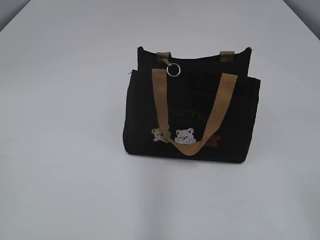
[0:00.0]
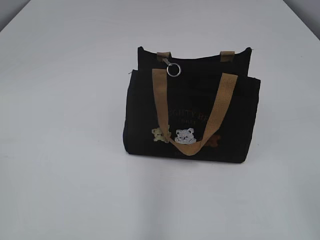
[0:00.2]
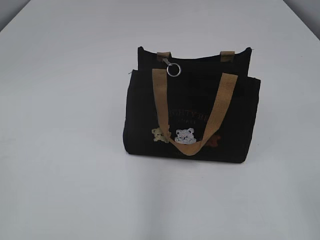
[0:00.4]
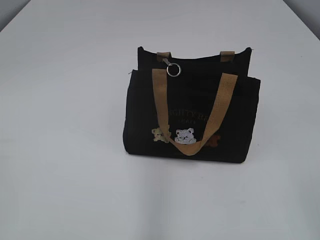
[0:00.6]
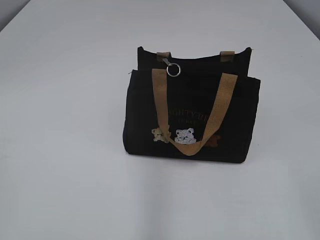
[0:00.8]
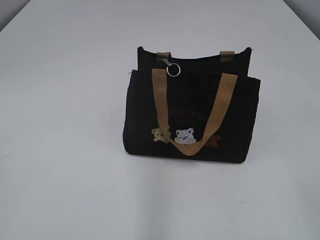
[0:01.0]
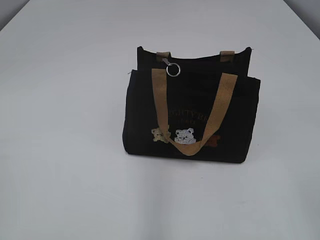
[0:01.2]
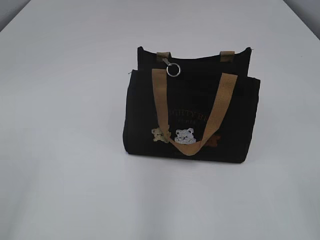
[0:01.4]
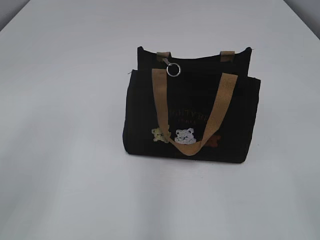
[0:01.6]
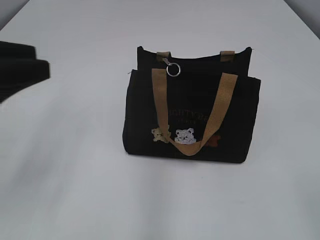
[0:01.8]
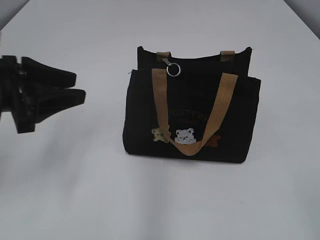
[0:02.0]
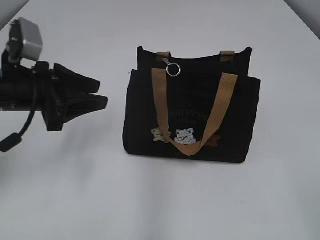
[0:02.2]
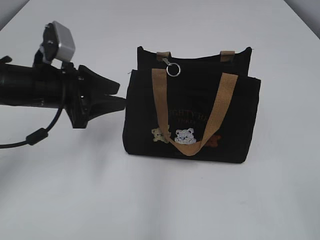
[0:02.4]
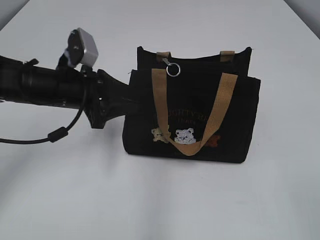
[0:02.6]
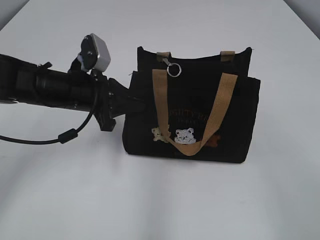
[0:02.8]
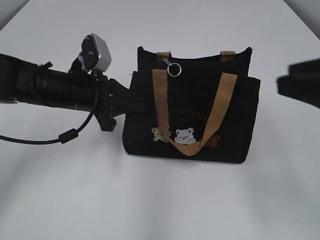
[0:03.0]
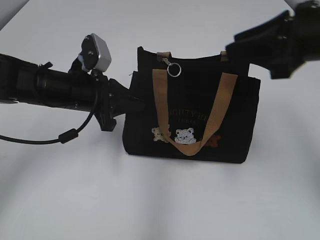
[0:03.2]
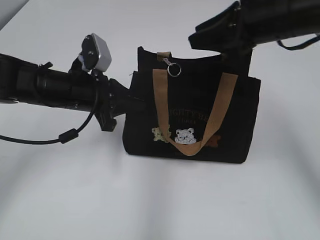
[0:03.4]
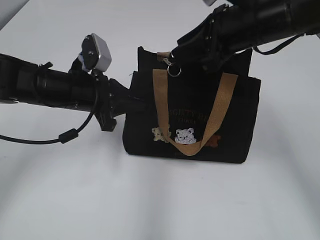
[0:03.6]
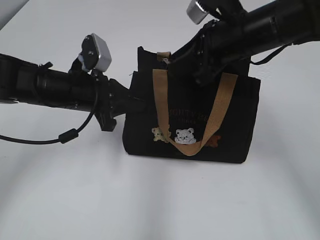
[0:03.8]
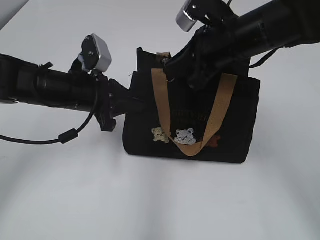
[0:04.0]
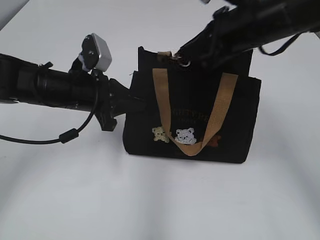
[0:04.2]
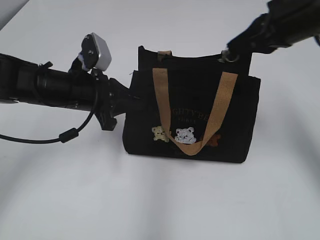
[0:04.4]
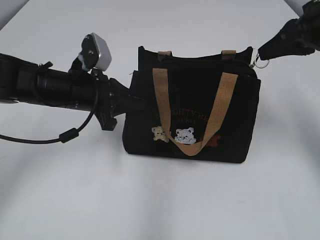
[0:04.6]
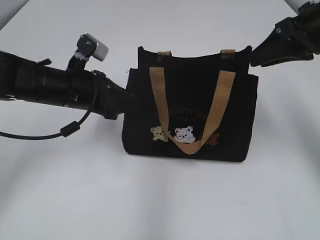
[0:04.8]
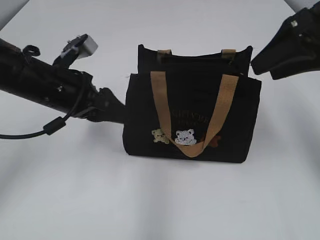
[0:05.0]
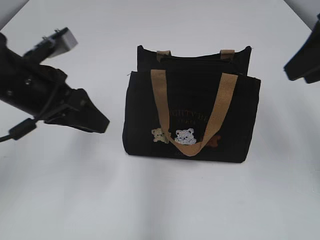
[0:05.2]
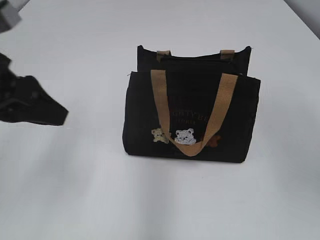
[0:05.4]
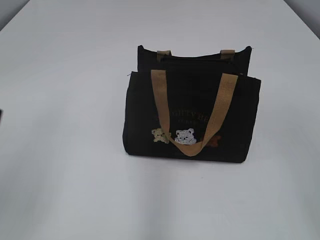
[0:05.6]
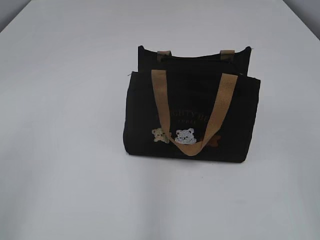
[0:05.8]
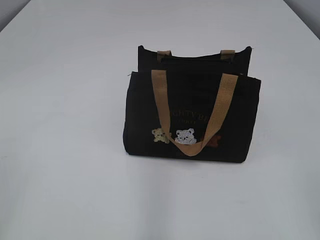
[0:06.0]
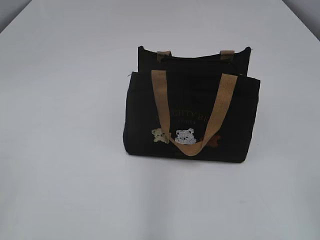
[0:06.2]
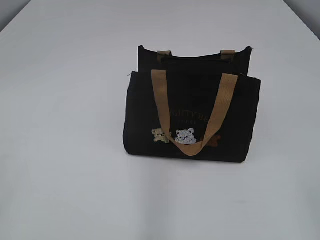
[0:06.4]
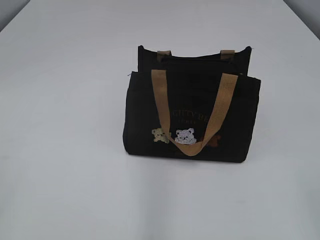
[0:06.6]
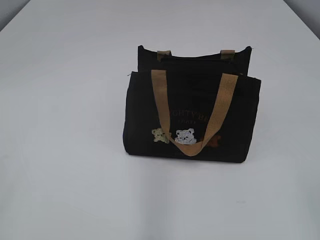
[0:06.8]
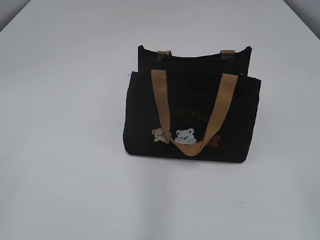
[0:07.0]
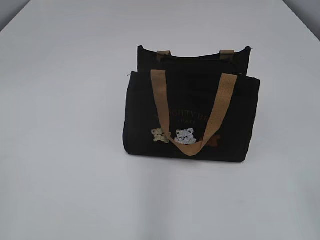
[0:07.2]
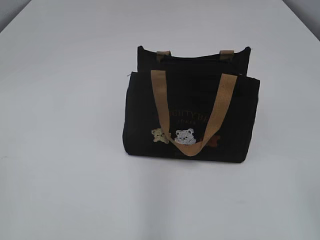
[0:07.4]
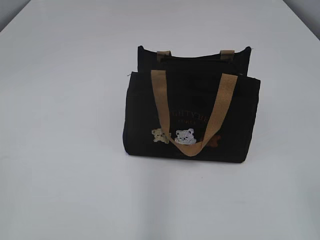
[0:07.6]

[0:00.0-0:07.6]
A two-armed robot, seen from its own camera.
Step, 0:00.0 to 0:04.6: Pull open the zipper with your right hand.
Step, 0:04.8 to 0:05.0: Hold the bag with your left hand.
0:01.6 to 0:03.0: The right gripper heads forward, covering approximately 15 cm. Meanwhile the left gripper heads forward, downward and to the right, covering roughly 30 cm, and closes.
0:03.0 to 0:04.6: The right gripper goes some 20 cm forward, and closes up.
0:04.6 to 0:06.0: The right gripper moves backward, approximately 30 cm, and opens its fingers. Meanwhile the left gripper heads backward, to the left and upward, covering some 35 cm, and opens.

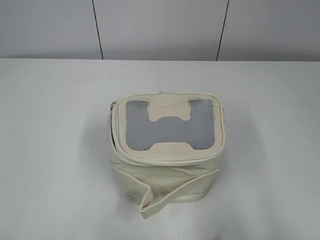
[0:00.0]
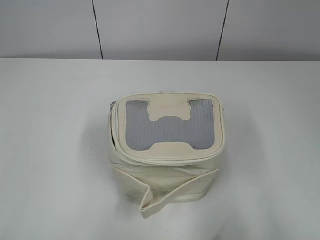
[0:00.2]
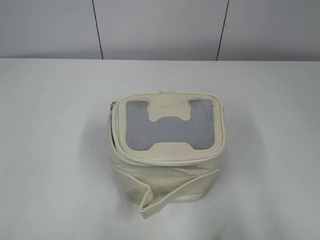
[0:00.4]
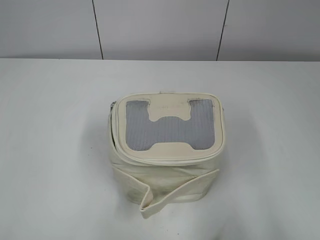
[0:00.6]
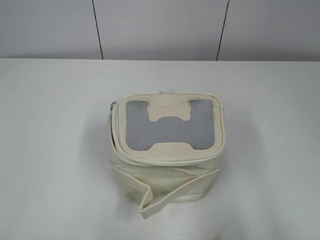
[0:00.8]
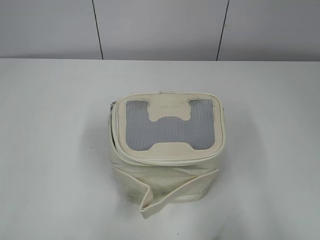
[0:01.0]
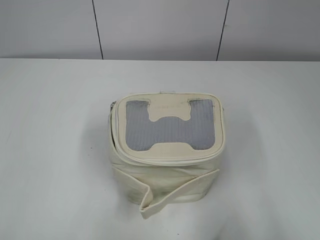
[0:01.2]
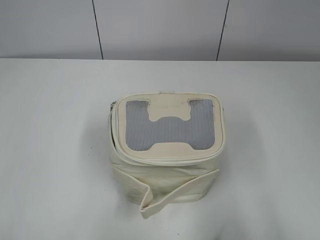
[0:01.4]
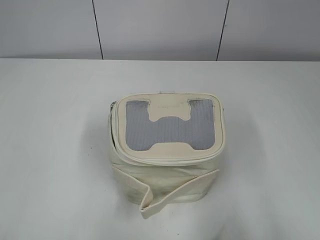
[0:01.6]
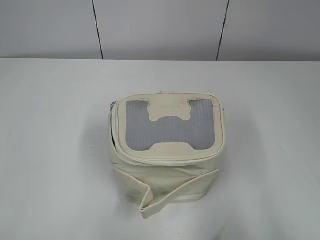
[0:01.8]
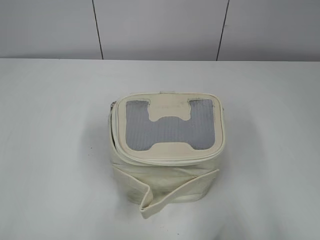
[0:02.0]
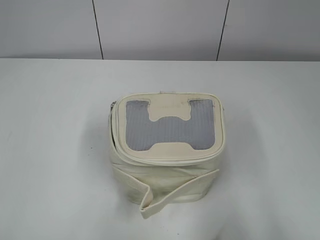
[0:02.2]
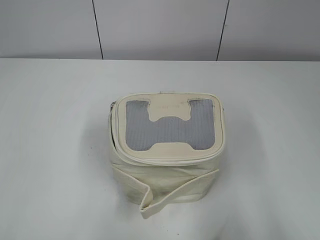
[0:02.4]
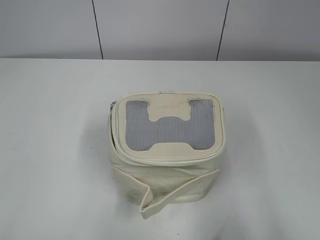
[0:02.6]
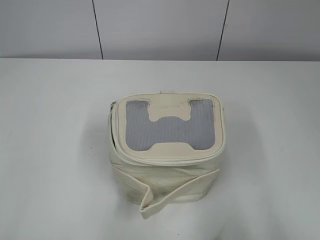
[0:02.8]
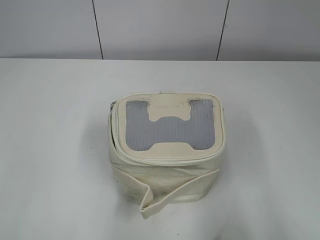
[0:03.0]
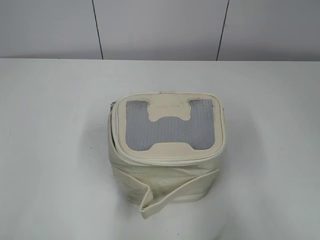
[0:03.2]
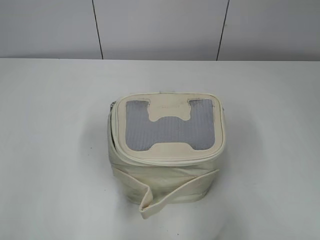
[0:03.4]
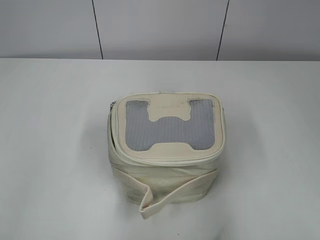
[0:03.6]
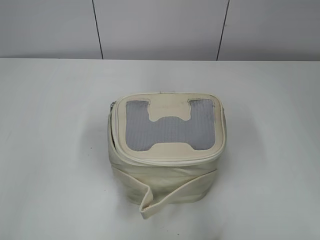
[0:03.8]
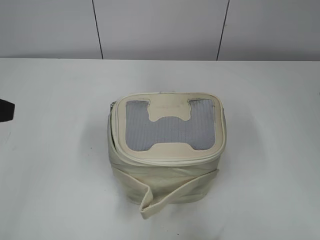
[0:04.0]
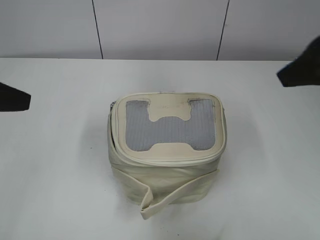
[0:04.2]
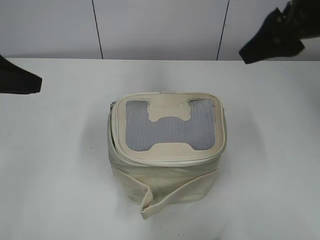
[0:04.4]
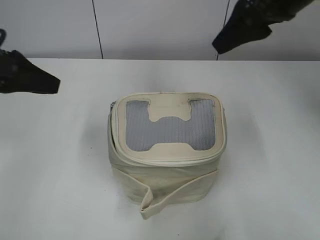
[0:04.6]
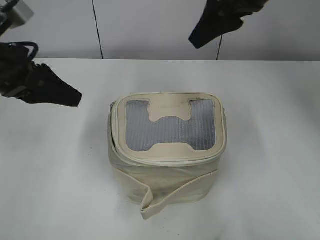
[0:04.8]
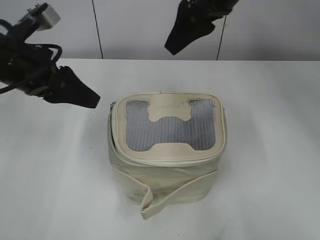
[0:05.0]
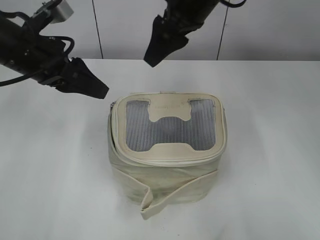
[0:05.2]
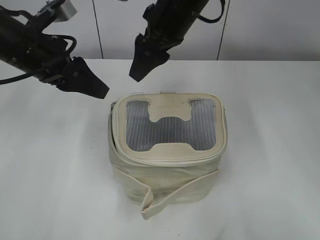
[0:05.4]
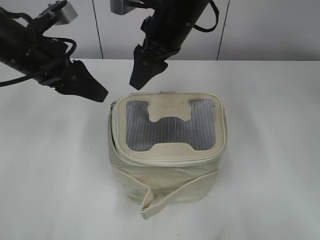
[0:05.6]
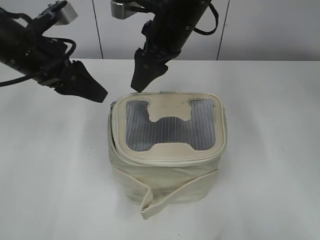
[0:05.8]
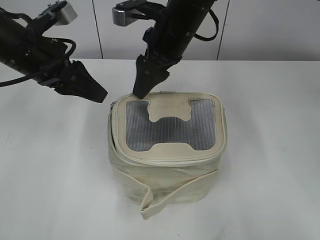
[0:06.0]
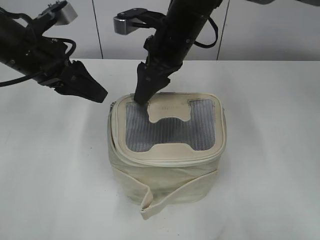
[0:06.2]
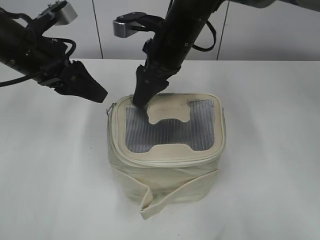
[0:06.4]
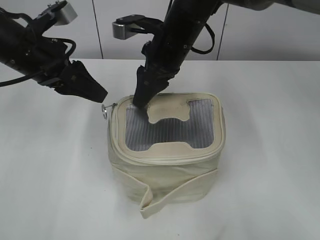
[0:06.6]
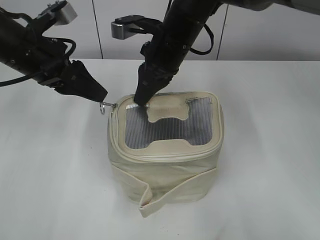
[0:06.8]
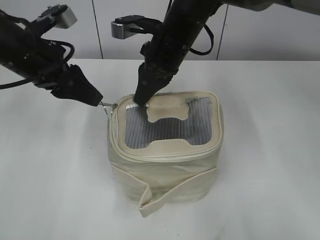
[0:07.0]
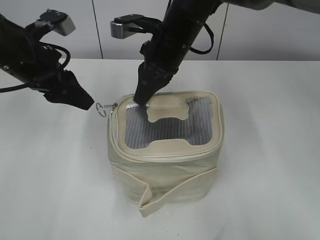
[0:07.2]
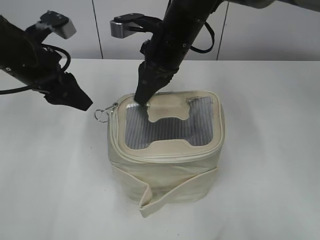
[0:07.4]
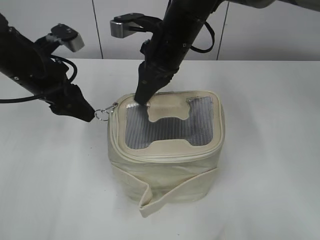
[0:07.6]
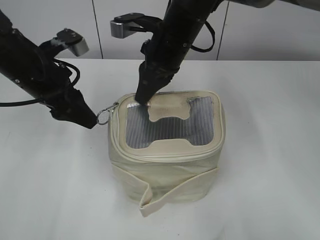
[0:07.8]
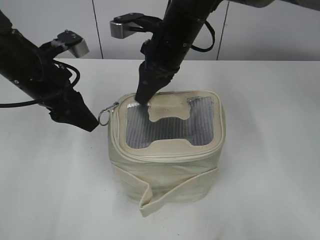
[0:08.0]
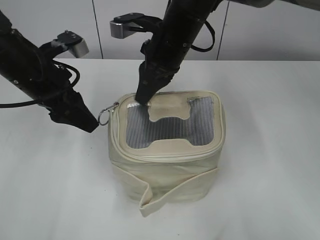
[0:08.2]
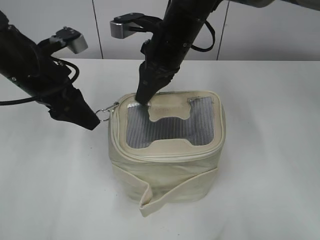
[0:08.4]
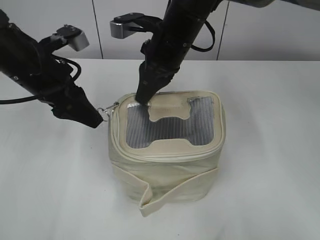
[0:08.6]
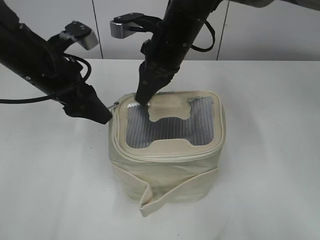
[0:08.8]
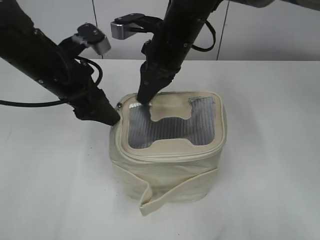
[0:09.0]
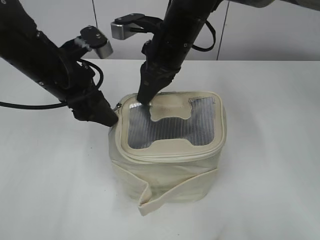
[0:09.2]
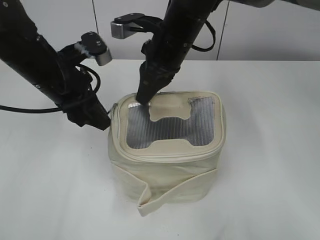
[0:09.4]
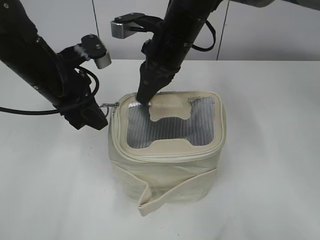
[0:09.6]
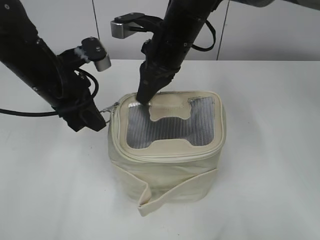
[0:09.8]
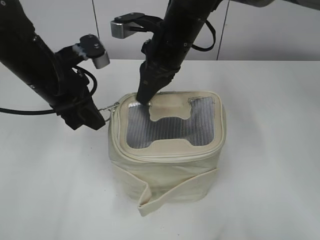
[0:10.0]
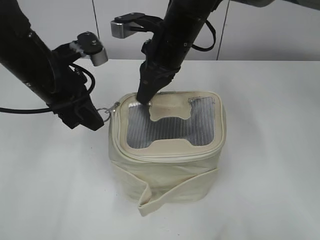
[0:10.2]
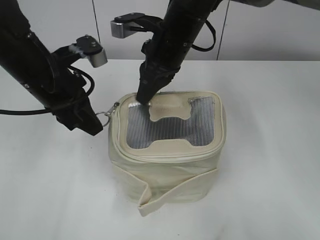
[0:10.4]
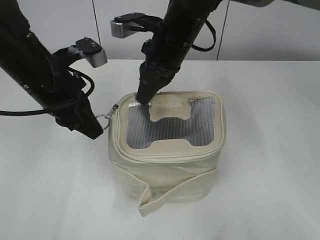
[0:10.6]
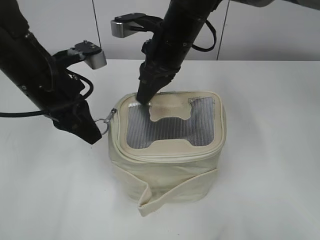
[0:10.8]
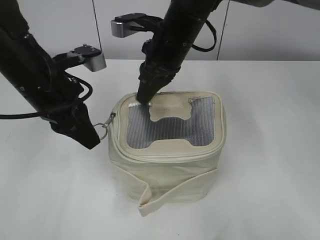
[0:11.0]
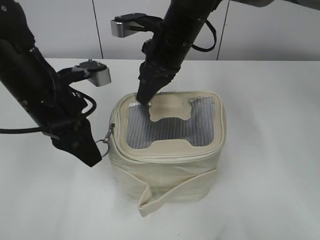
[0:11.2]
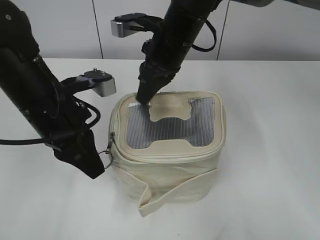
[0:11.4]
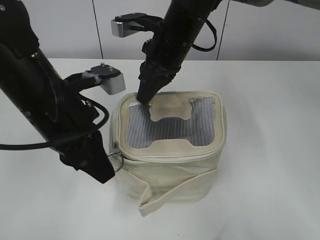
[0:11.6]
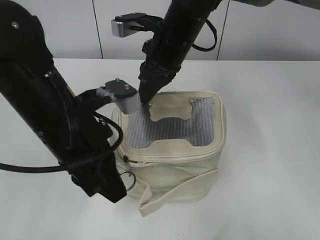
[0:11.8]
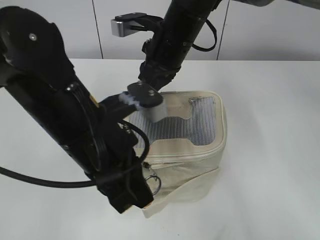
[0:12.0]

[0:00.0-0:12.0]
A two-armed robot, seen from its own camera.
0:03.0 to 0:04.4: The left gripper shifts approximately 20 cm forward. Meanwhile the right gripper travels forward and to the left by about 30 cm.
0:04.4 to 0:06.0: The left gripper travels forward and to the right by approximately 10 cm; the right gripper moves to the left, forward and downward, some 20 cm.
0:06.0 to 0:07.6: The right gripper closes up.
0:07.6 to 0:09.0: The grippers move only a little.
0:09.0 to 0:10.4: The left gripper closes.
0:10.4 to 0:12.0: The left gripper heads backward and to the right, covering roughly 15 cm.

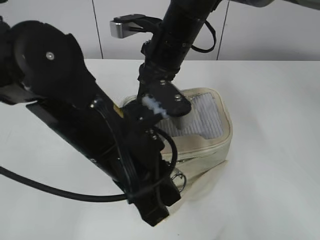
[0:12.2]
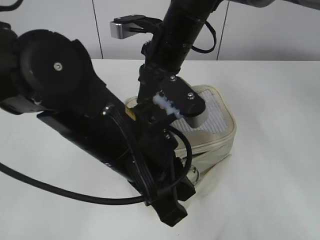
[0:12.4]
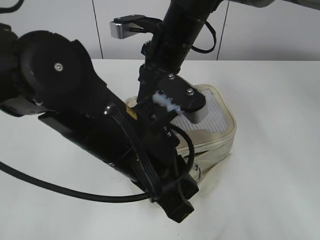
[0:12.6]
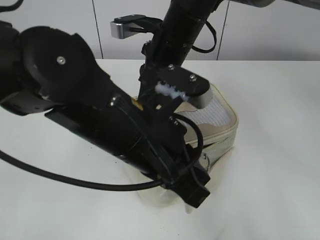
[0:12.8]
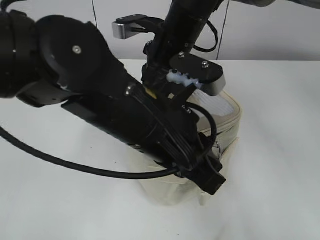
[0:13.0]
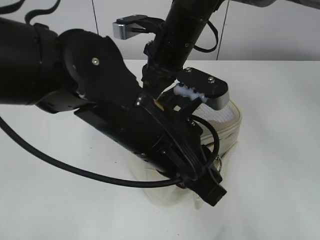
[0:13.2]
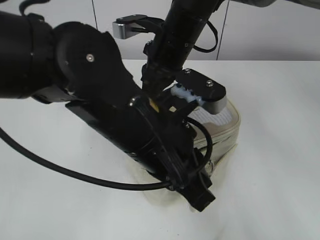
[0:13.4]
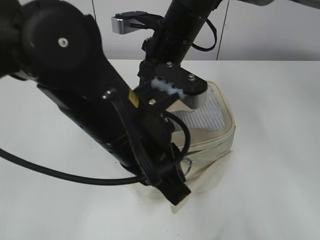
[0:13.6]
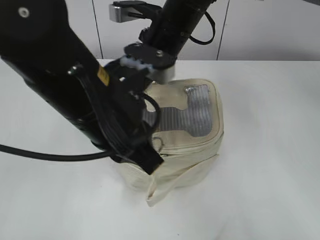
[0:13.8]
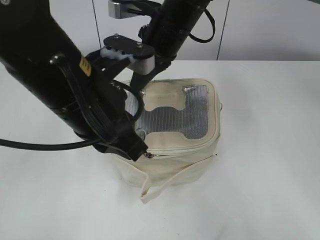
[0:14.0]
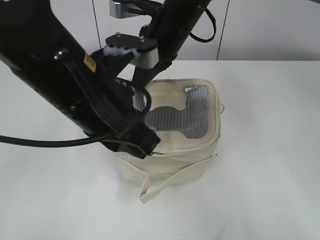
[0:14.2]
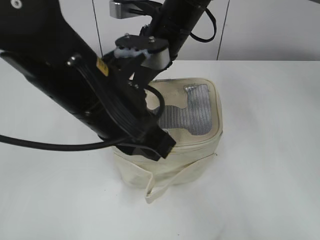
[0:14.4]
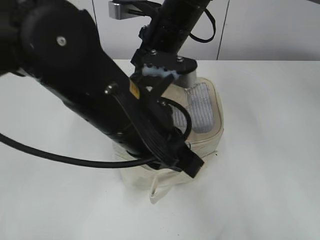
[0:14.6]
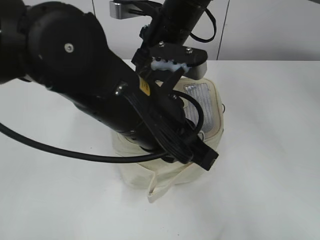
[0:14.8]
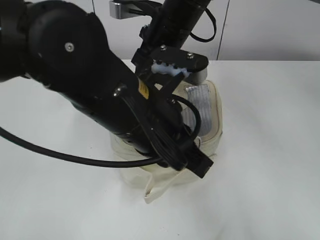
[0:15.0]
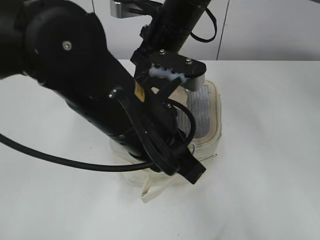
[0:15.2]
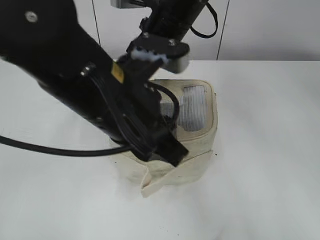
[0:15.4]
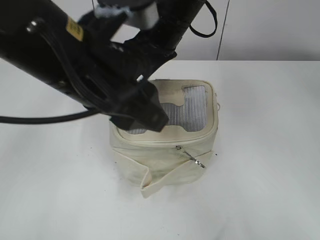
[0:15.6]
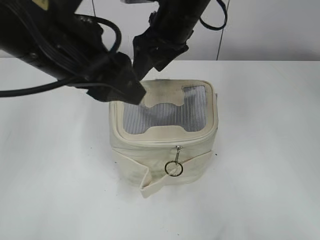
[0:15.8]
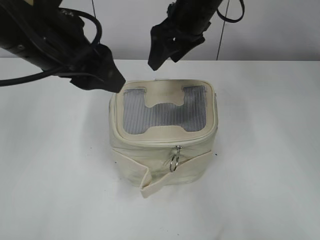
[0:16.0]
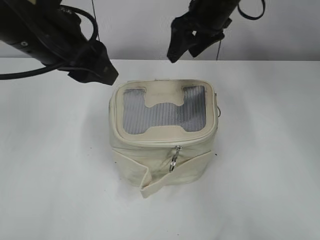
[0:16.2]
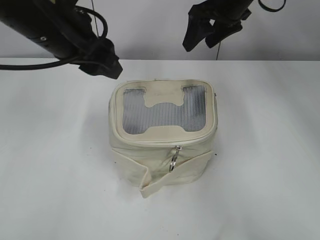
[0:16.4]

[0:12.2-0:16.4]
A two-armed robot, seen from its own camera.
Step, 0:12.2 to 0:15.4: Zip up the bag with your left hand.
Step, 0:15.6 to 0:15.8: Hold the bag with your right hand.
0:15.0 to 0:16.4: The left gripper moves to the left, forward and upward, roughly 15 cm, and opens its fingers, while the right gripper shifts roughly 10 cm to the right and forward, and opens its fingers.
